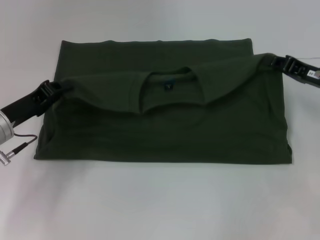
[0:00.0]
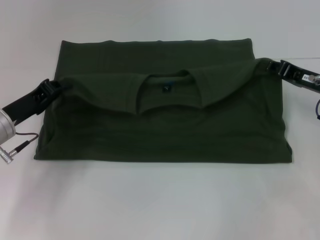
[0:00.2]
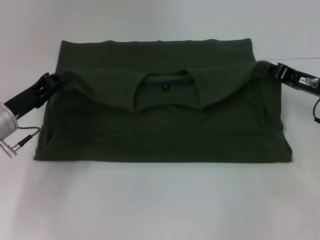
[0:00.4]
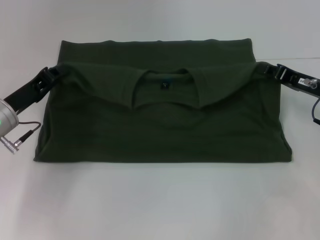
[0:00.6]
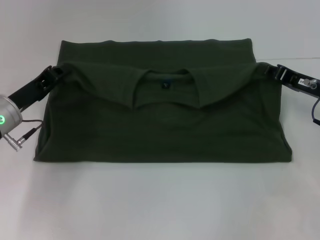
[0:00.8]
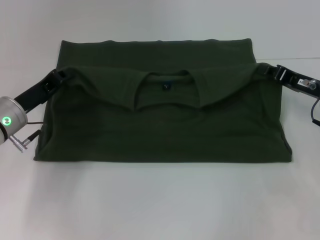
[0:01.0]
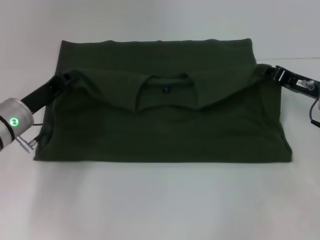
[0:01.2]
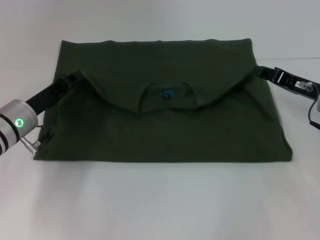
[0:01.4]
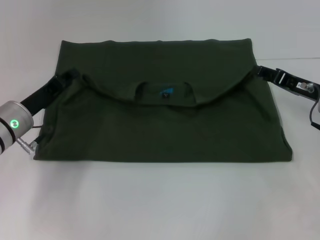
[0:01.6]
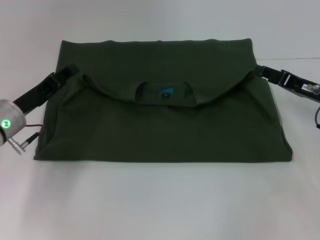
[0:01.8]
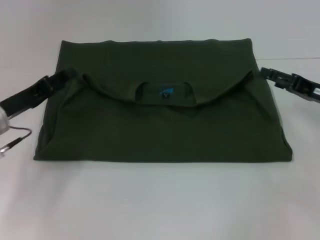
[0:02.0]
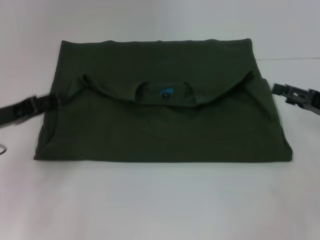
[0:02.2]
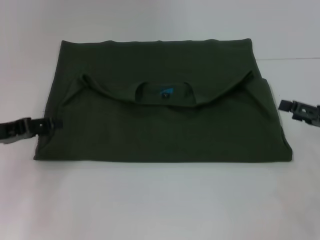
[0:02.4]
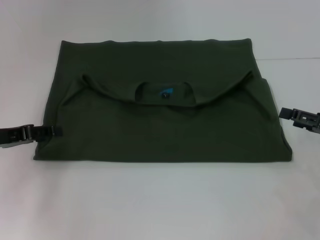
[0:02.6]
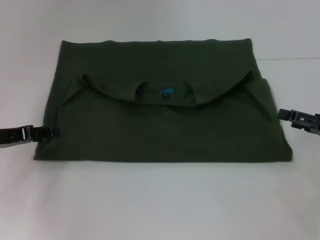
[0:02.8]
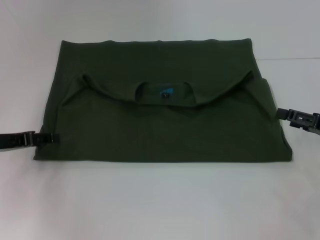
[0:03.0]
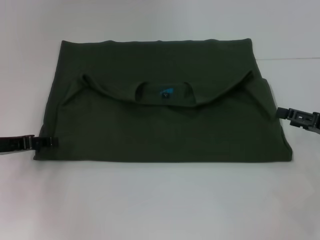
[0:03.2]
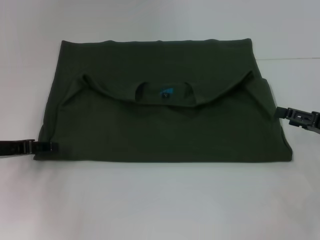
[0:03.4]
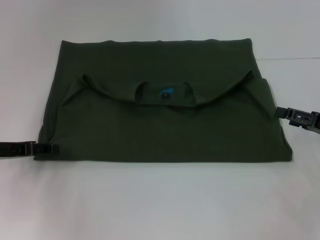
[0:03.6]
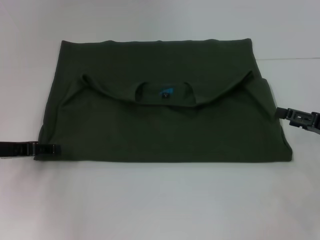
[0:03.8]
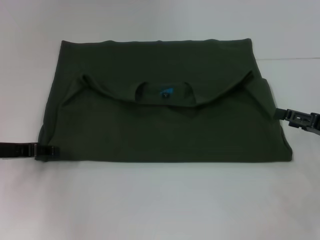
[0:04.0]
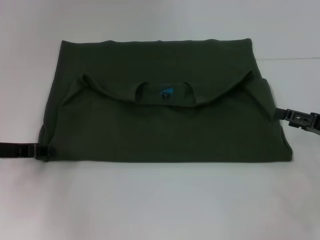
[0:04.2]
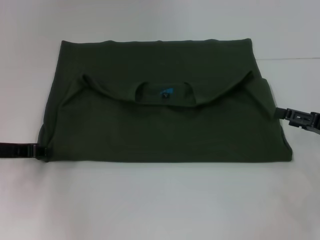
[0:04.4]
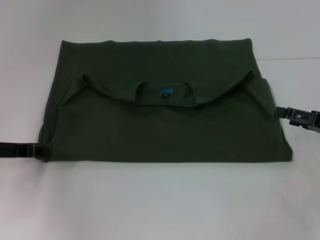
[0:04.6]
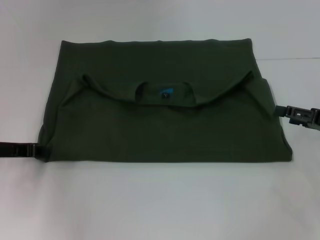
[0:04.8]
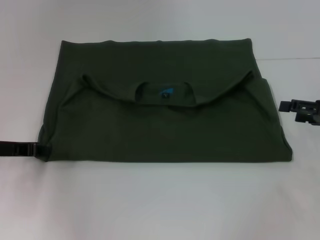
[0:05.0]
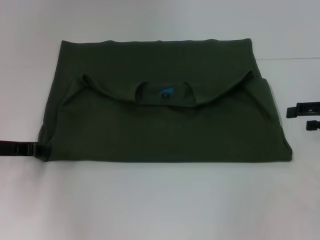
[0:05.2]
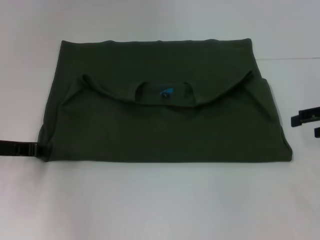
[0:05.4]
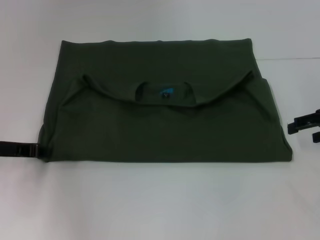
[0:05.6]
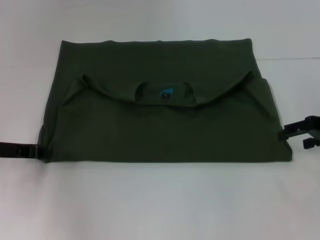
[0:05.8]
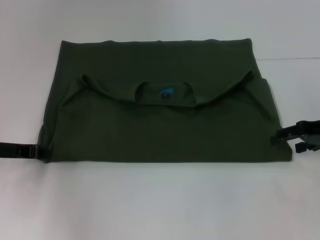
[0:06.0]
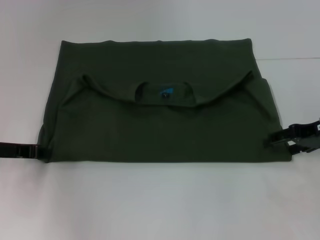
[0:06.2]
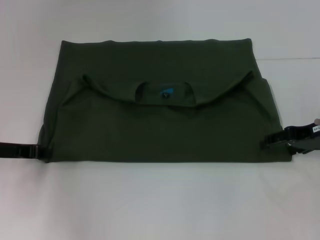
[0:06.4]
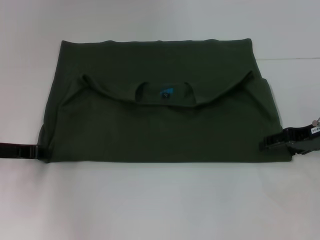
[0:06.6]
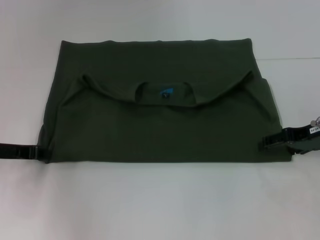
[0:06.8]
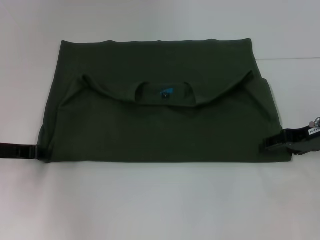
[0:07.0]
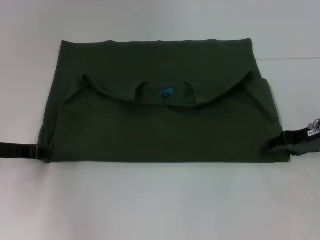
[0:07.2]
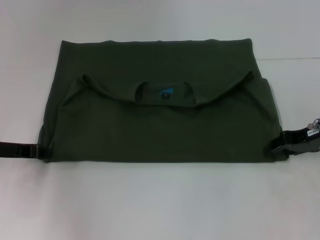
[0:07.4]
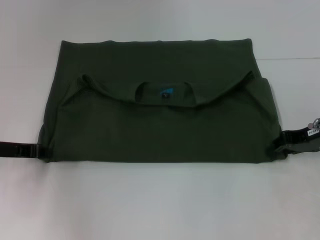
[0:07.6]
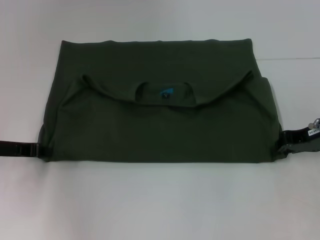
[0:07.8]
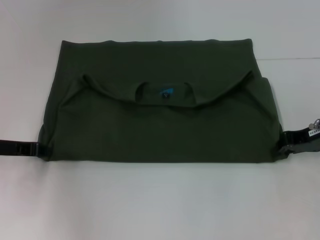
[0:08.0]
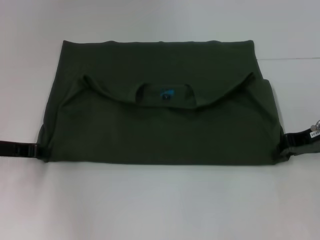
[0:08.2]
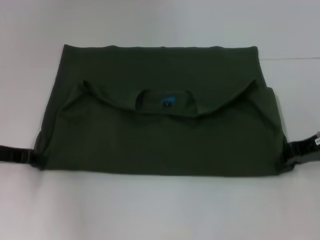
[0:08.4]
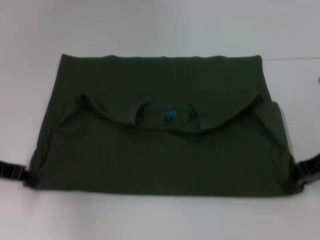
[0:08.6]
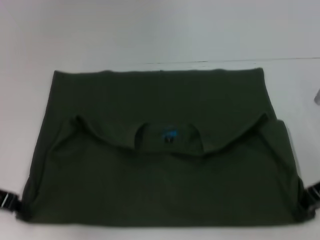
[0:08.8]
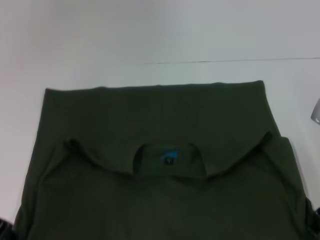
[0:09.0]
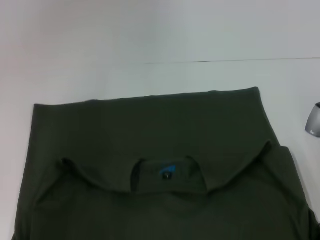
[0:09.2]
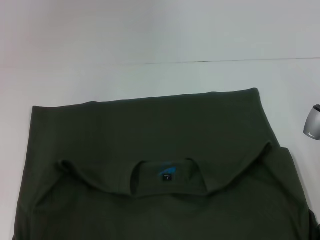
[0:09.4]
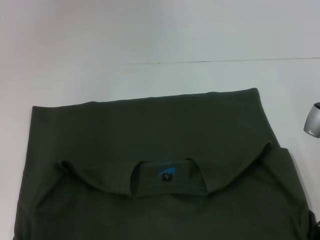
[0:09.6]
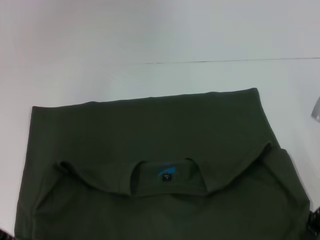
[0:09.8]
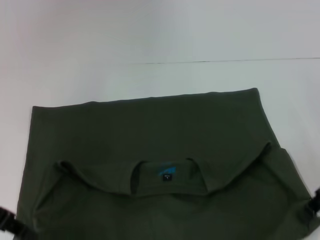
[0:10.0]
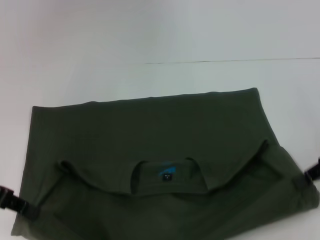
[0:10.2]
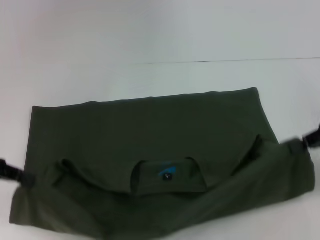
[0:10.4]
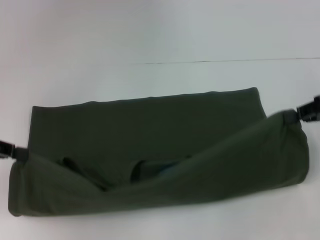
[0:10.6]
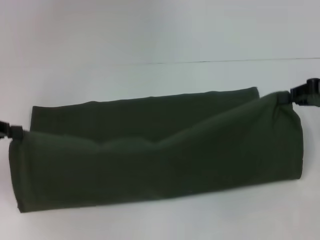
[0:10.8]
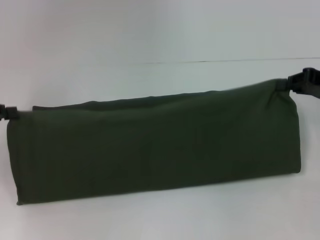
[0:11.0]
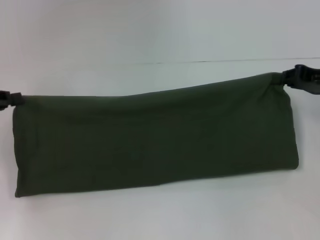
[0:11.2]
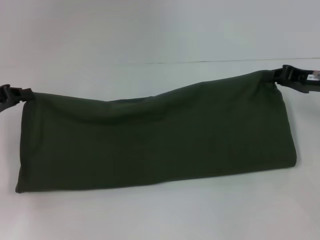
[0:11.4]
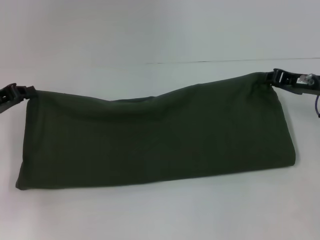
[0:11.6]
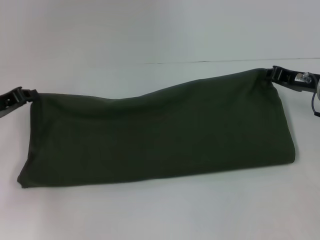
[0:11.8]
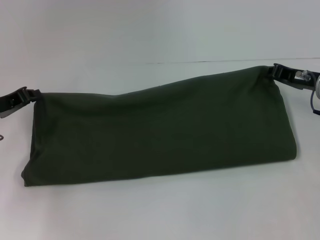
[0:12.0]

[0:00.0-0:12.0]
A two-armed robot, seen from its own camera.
Step, 0:01.8 to 0:09.2: Pull the clothes with your left hand.
Step, 0:01.8 to 0:09.2: Pull the clothes with your right hand.
0:00.0 to 0:01.6: The grippers move only a little.
0:01.6 to 0:03.0: The right gripper is displaced backward and to the right by approximately 10 cm, and opens, while the left gripper shifts some 10 cm to the left, and opens up.
0:03.0 to 0:04.4: The grippers move only a little.
0:04.4 to 0:06.0: The right gripper travels forward and upward by roughly 5 cm.
0:06.0 to 0:07.6: The right gripper closes its fingers.
0:07.6 to 0:09.0: Both grippers move backward, some 5 cm. The right gripper closes up.
0:09.0 to 0:10.4: The right gripper moves upward, approximately 5 cm. Meanwhile the left gripper shifts by about 5 cm.
0:10.4 to 0:12.0: The left gripper is displaced downward and forward by roughly 10 cm, while the right gripper shifts approximately 10 cm downward, forward and to the left.

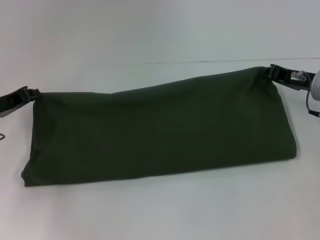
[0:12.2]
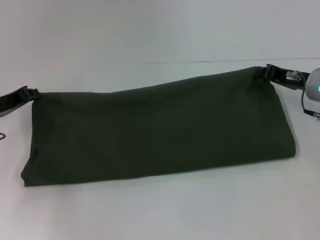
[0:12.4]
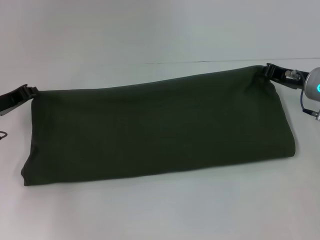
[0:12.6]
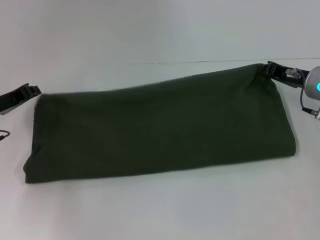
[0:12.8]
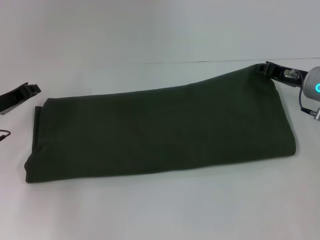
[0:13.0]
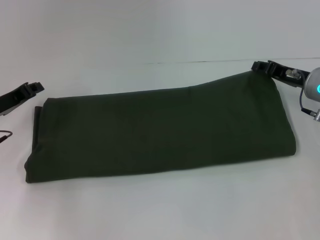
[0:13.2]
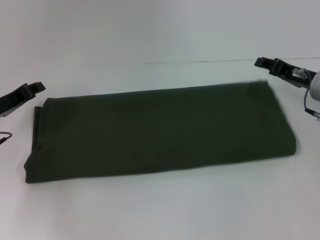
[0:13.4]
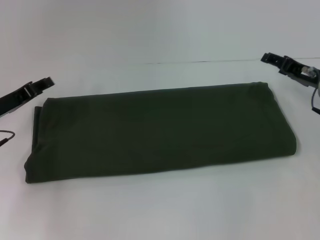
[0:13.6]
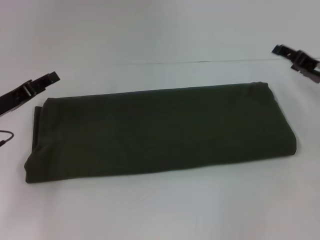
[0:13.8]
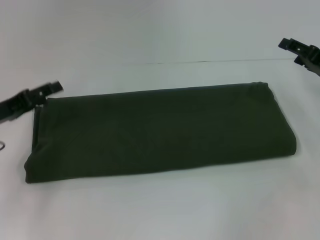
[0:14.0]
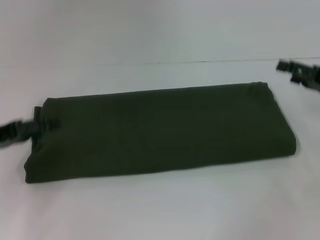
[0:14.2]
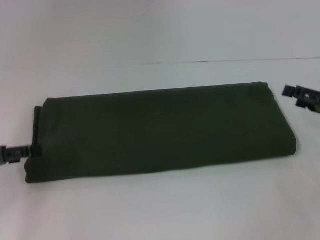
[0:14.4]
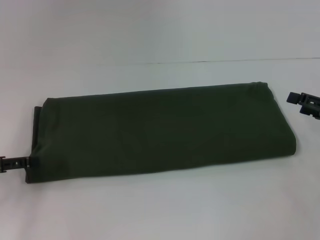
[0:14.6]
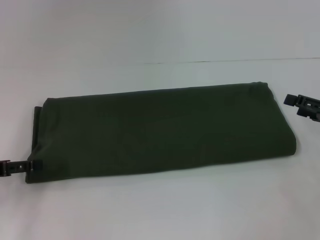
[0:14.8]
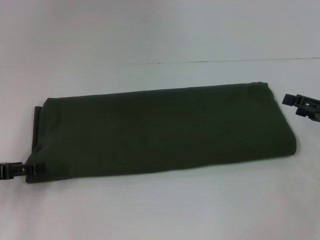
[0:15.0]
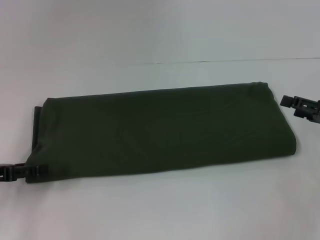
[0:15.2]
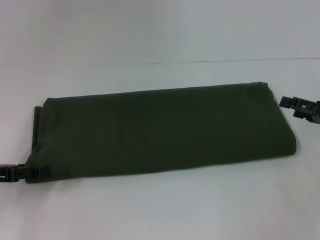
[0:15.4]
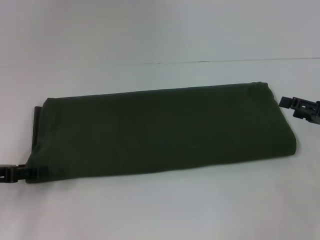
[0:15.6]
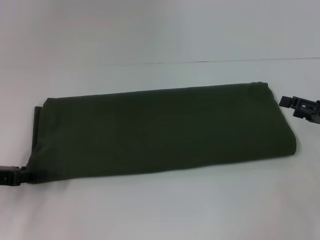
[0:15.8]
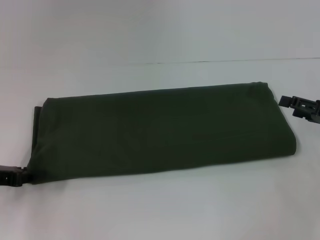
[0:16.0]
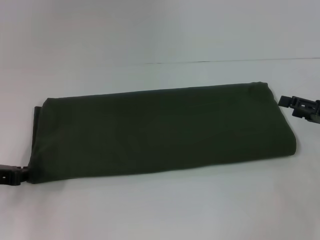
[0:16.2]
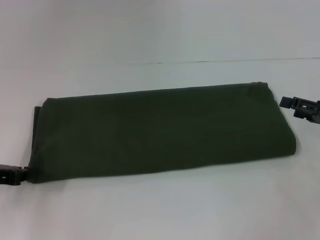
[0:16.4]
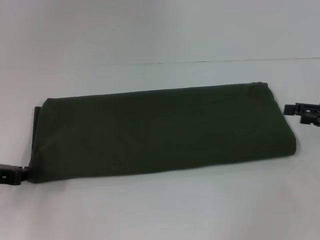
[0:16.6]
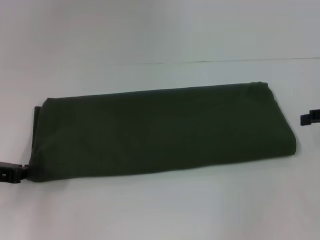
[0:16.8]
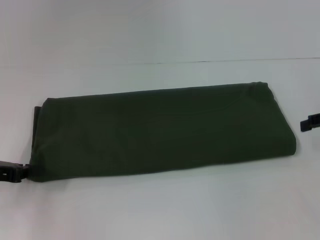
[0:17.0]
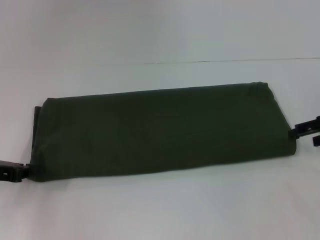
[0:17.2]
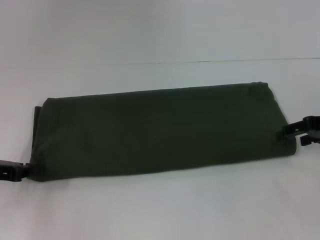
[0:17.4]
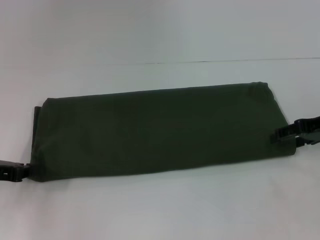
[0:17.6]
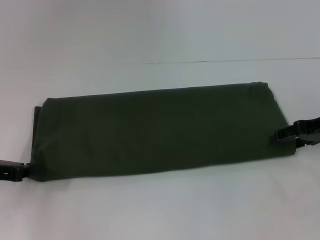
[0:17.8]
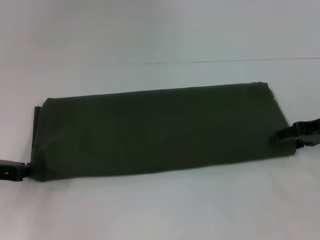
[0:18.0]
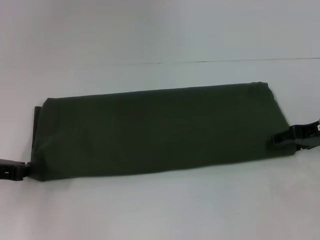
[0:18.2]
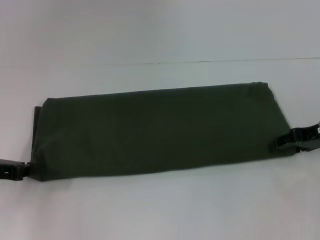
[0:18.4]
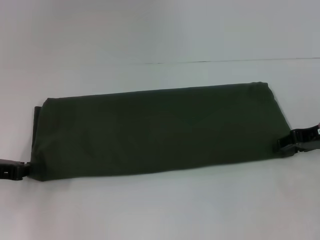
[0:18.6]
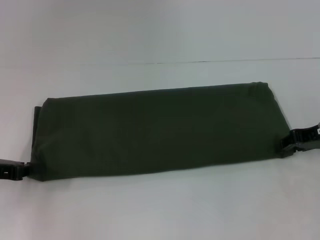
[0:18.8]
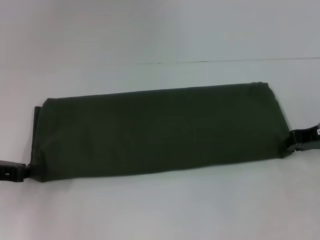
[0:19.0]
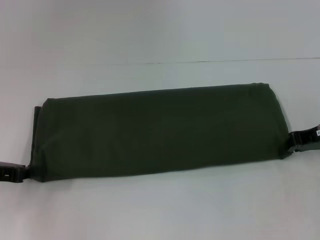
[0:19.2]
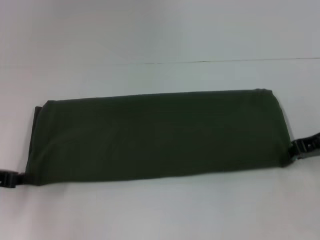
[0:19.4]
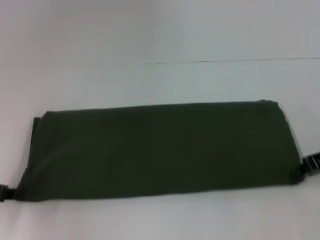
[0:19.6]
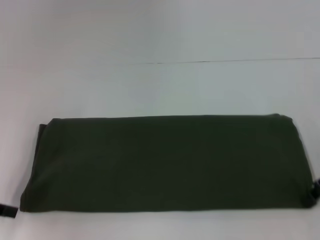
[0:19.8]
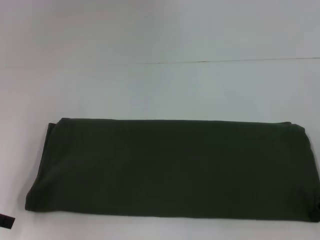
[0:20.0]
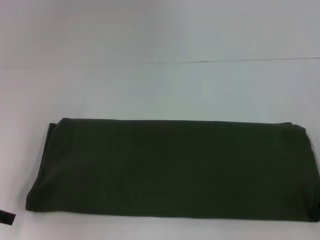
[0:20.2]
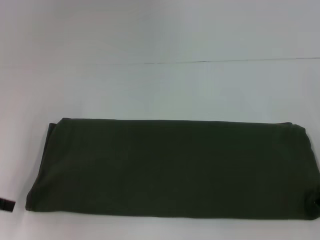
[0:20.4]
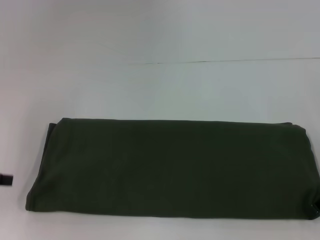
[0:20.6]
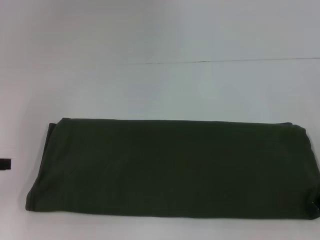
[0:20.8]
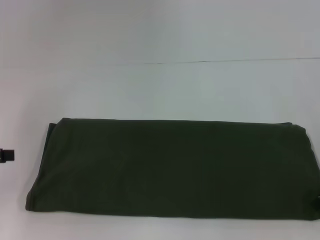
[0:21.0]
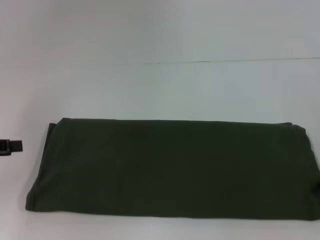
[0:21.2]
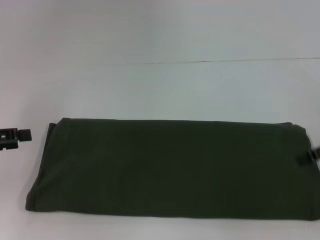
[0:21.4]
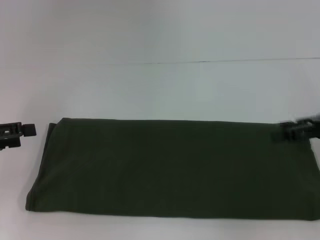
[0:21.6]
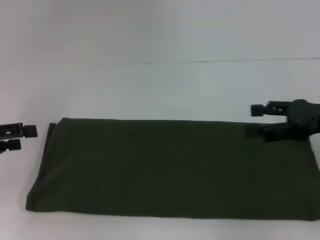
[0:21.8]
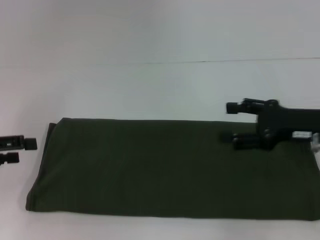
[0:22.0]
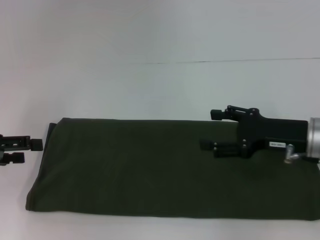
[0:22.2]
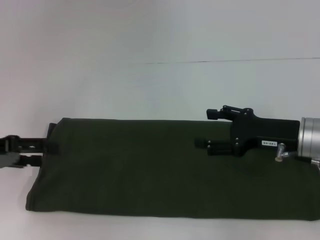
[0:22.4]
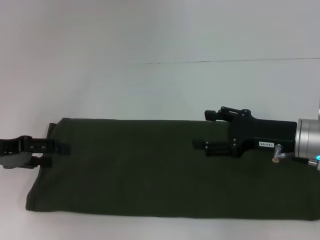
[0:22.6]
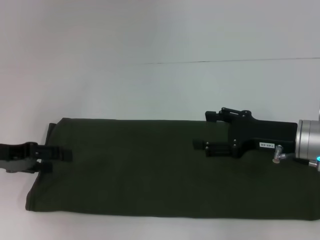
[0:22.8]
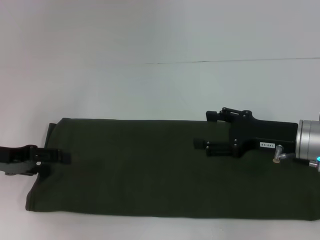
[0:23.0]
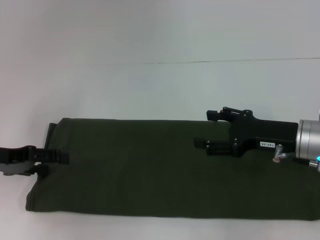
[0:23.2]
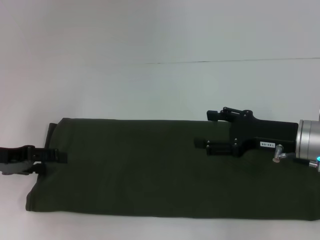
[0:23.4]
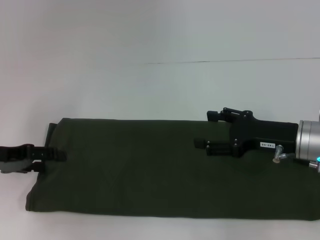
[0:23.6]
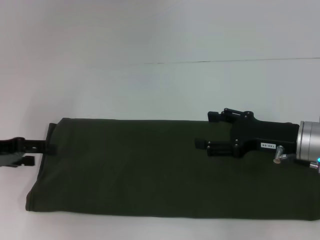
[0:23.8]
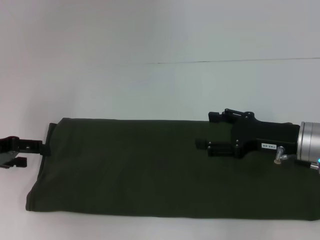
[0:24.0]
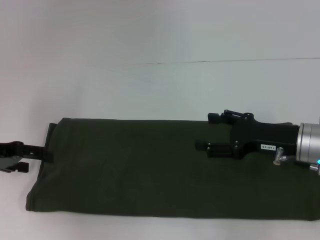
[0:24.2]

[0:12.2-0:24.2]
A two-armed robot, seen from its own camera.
Step, 0:13.6 to 0:20.4: Pull the clothes with your left hand.
Step, 0:13.6 to 0:20.4: Pull the clothes with your right hand.
0:12.2 to 0:13.8: The left gripper opens up; the right gripper opens up.
0:13.8 to 0:15.2: The two grippers go approximately 5 cm backward. The left gripper opens up.
0:16.6 to 0:18.2: The right gripper is displaced to the left by some 5 cm.
0:18.2 to 0:19.8: The right gripper closes its fingers.
0:19.8 to 0:21.2: The right gripper shifts by about 5 cm, and opens its fingers.
0:21.2 to 0:22.6: The left gripper changes place by some 5 cm, and opens up; the right gripper shifts approximately 15 cm to the left and downward.
0:22.6 to 0:24.2: The grippers stay close to where they were, moving slightly.
